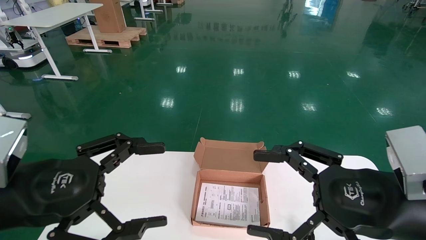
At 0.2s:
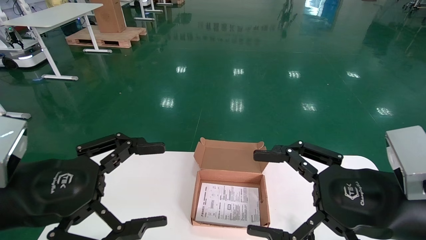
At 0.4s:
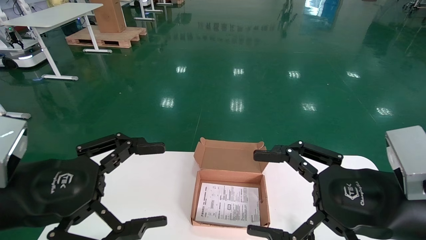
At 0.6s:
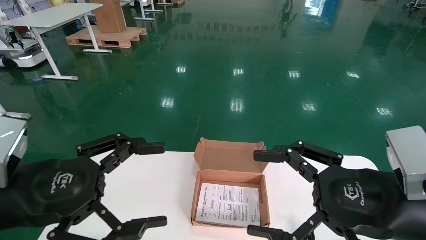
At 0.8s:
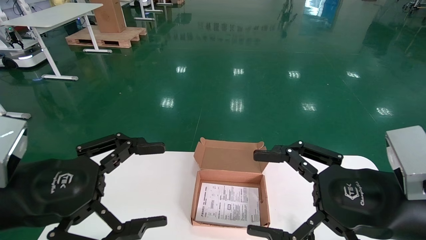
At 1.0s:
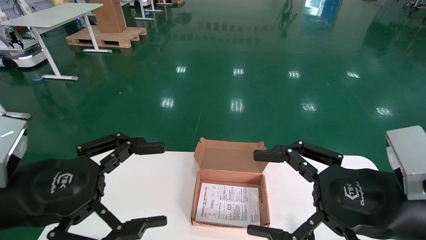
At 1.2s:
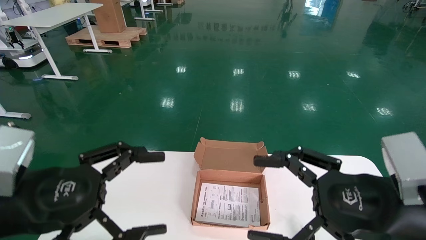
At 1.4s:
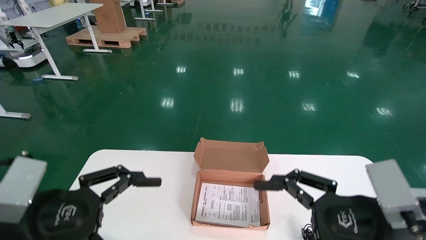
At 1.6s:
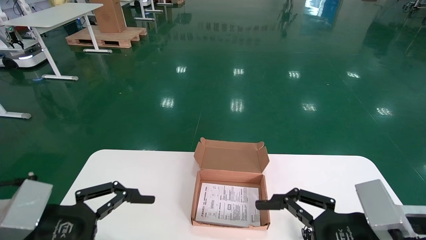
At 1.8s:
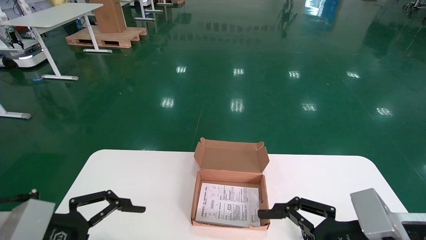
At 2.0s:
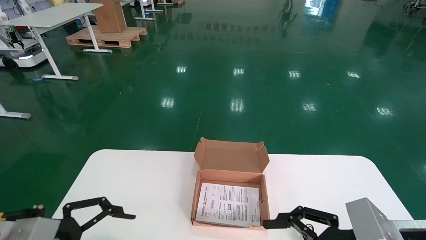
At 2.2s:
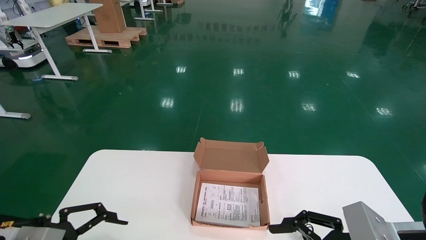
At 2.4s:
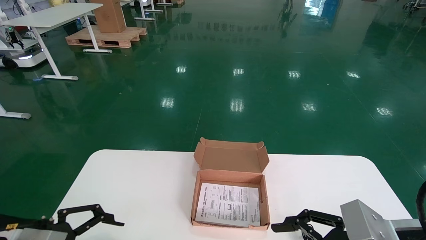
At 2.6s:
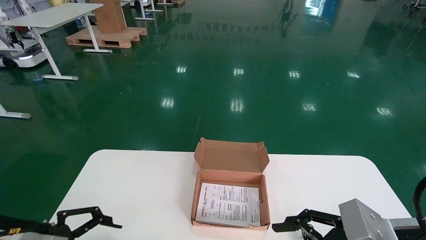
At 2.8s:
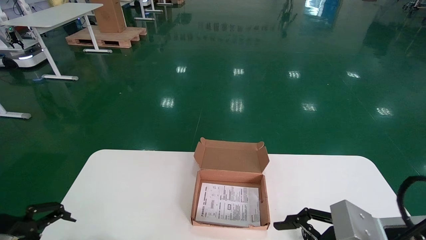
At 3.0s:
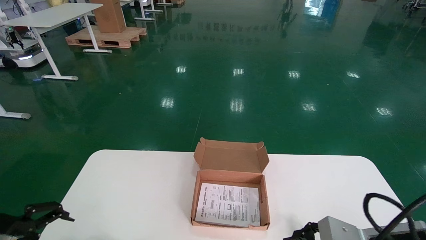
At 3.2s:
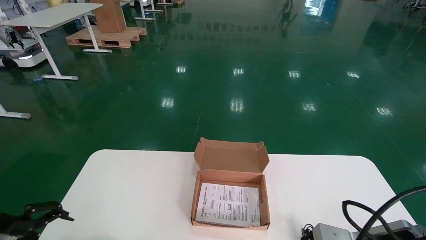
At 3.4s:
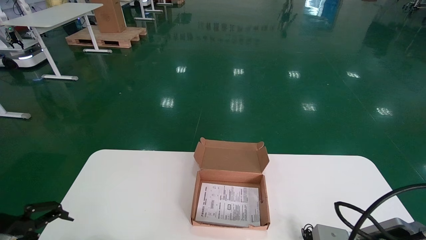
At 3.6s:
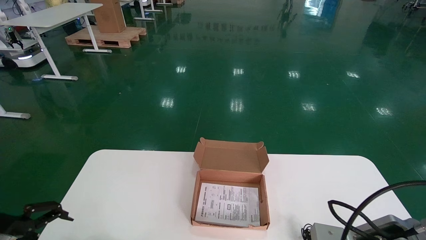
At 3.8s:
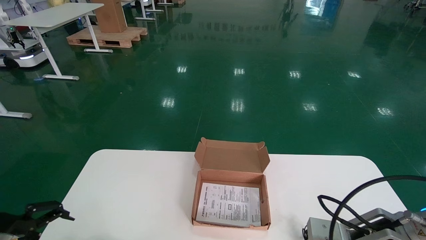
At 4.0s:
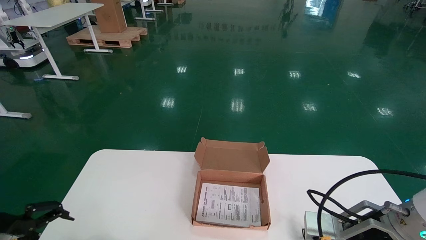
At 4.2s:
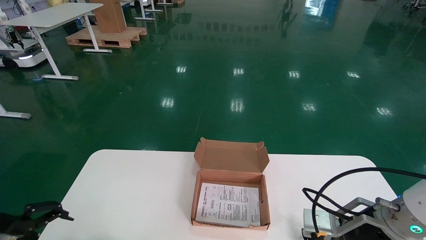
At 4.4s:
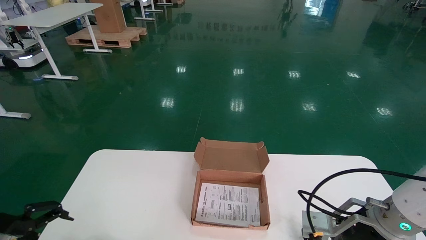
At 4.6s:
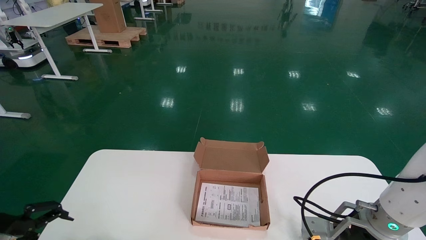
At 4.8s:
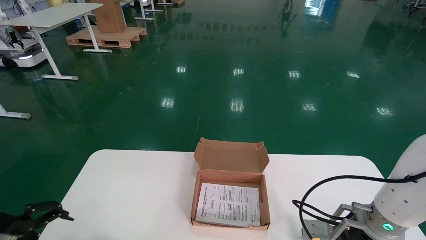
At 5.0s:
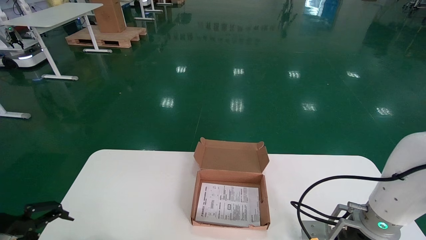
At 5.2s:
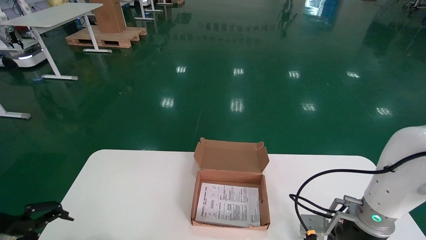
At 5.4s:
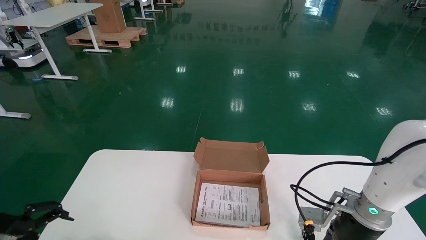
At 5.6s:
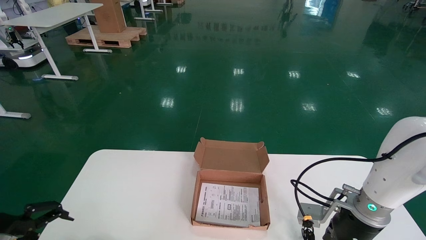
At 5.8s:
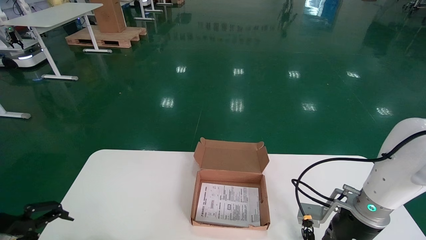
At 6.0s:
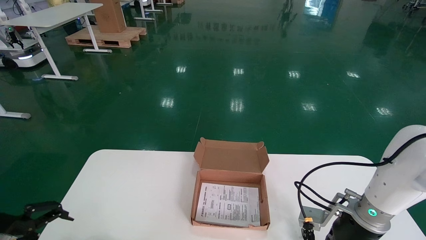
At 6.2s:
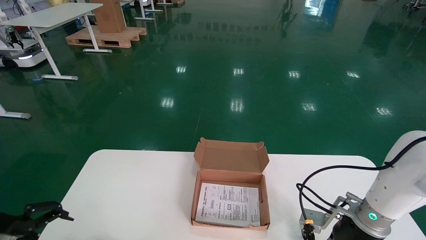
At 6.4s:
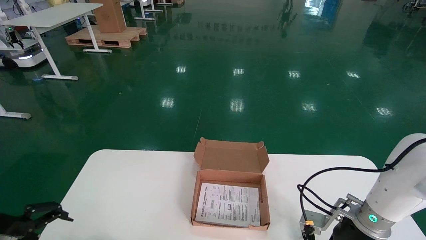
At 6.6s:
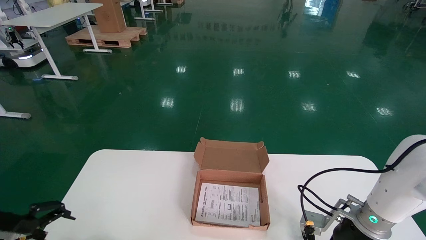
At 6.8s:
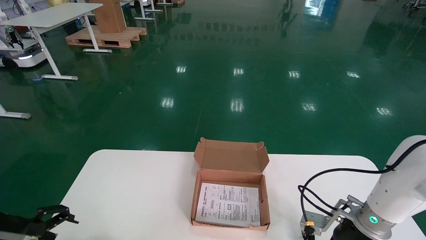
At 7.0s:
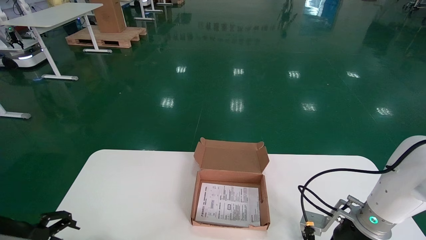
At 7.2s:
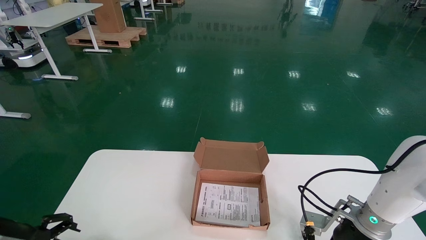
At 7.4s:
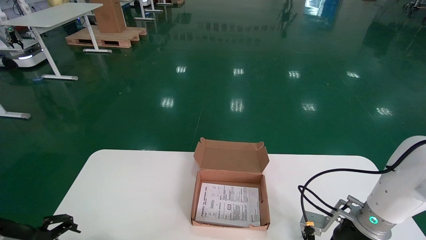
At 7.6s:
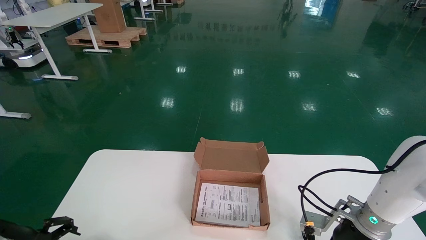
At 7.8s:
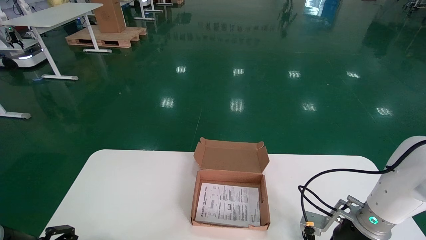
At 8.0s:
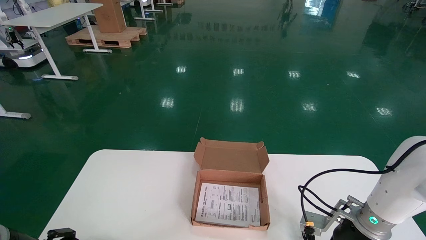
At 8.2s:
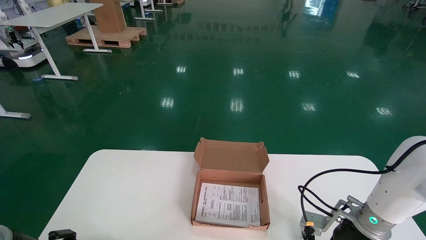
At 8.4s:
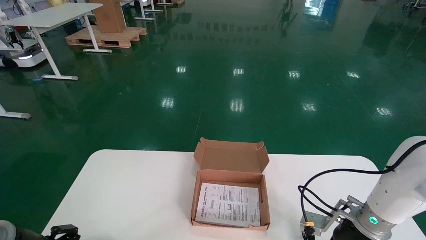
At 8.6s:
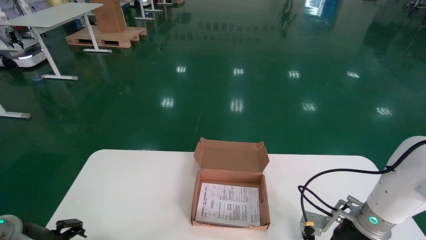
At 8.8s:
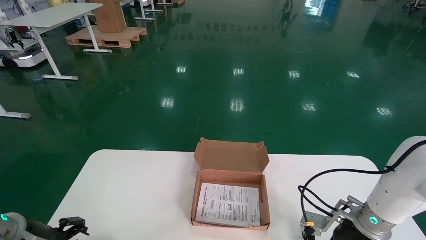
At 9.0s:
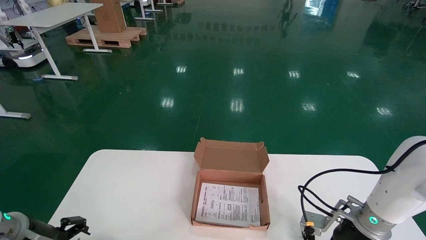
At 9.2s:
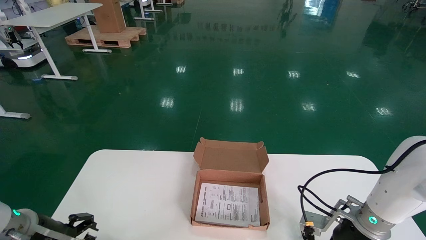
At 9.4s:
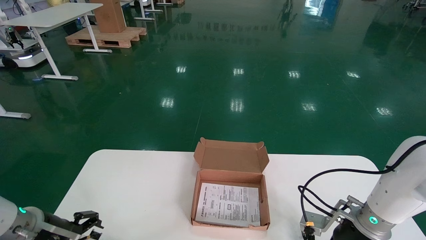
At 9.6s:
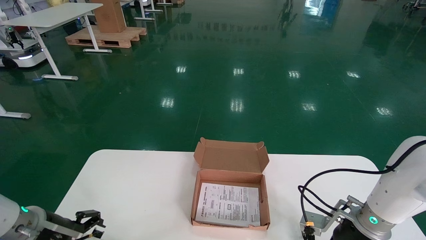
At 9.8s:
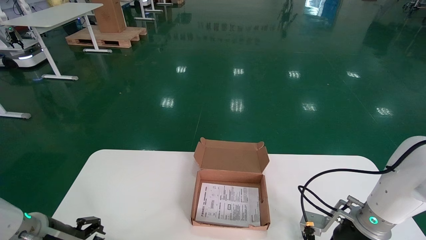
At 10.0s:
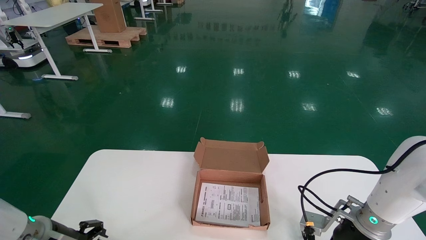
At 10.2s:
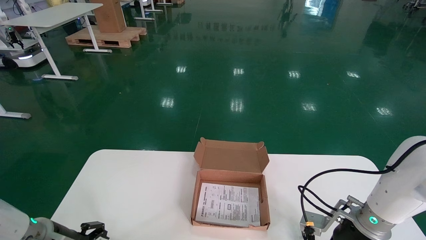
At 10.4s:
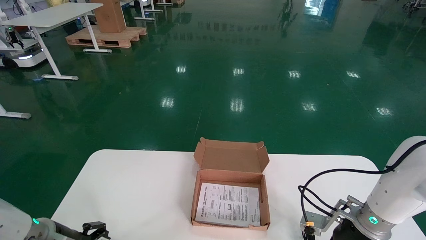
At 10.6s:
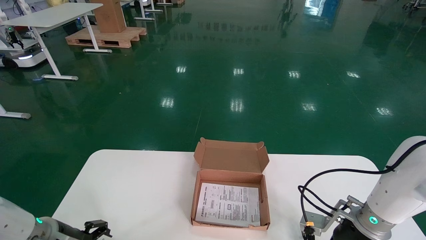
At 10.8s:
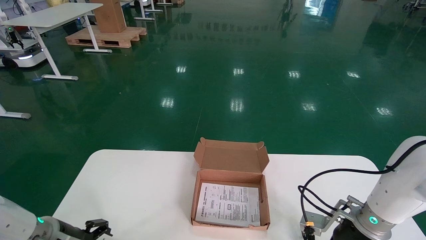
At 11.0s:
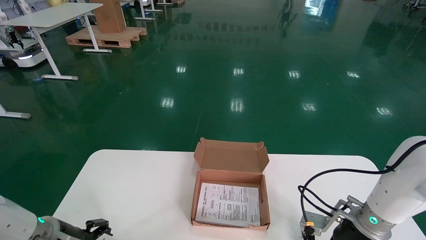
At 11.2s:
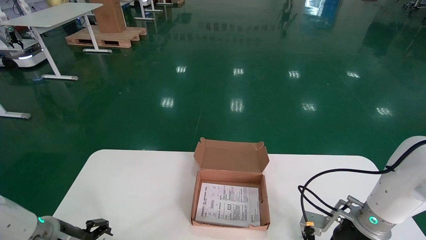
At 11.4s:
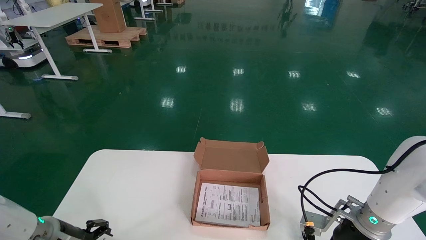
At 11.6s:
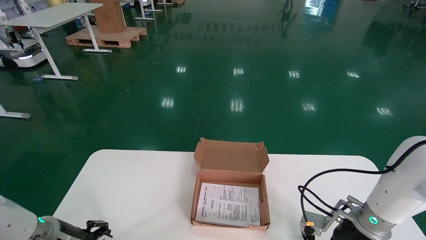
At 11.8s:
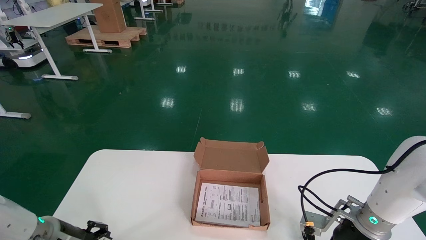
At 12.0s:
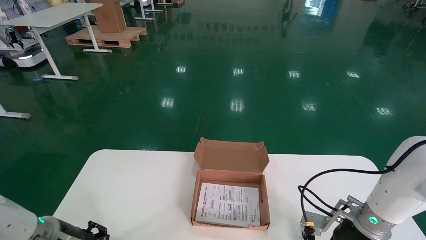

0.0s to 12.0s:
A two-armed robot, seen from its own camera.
1.6s to 3.0s: The left gripper heads to the left, covering approximately 10 cm.
3.0s to 4.4s: The right gripper shifts roughly 5 cm forward.
4.4s to 6.0s: The right gripper heads forward, covering about 10 cm.
6.0s to 7.6s: The grippers move only a little.
7.6s to 9.0s: The grippers stay close to where they were, moving slightly.
9.0s to 10.4s: There are only small adjustments of the grippers.
10.4s to 12.0s: The grippers stay close to where they were, moving slightly.

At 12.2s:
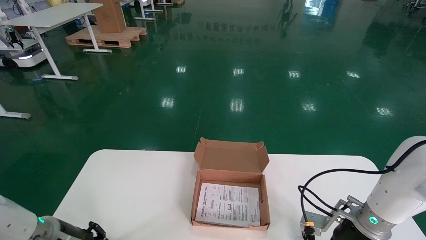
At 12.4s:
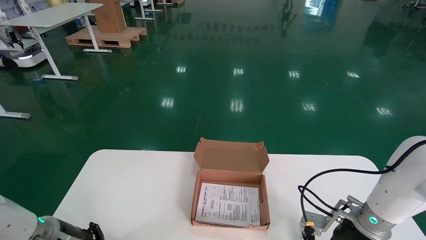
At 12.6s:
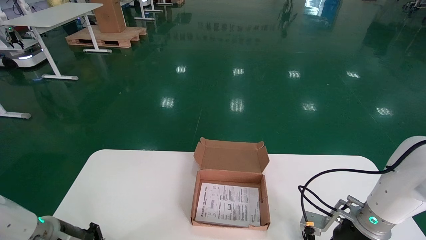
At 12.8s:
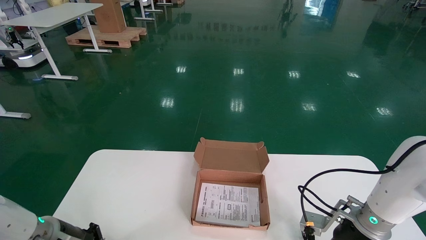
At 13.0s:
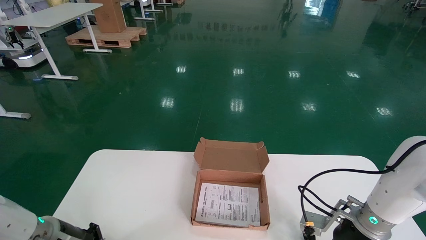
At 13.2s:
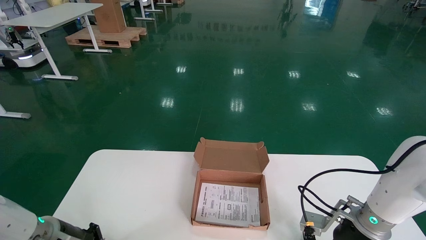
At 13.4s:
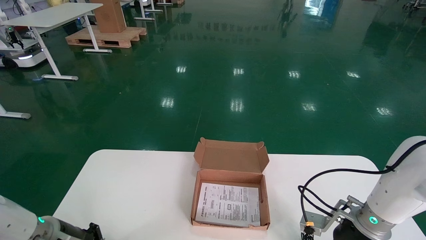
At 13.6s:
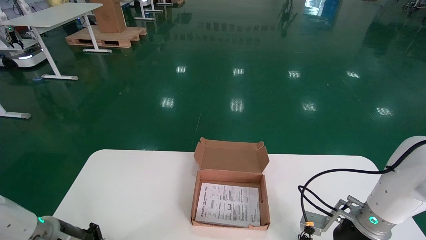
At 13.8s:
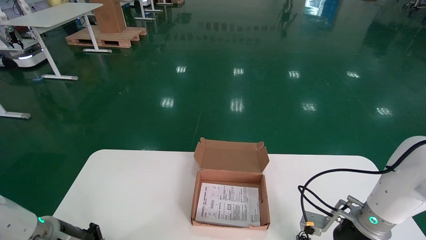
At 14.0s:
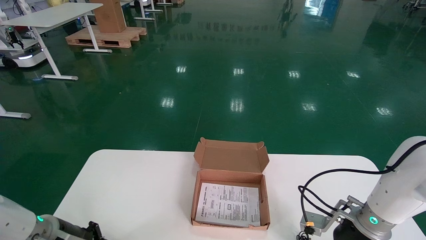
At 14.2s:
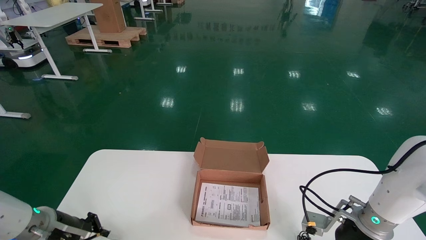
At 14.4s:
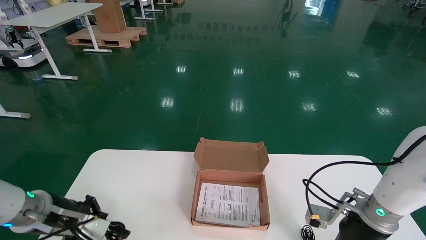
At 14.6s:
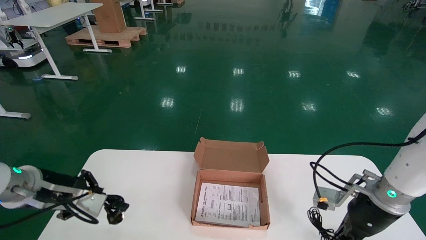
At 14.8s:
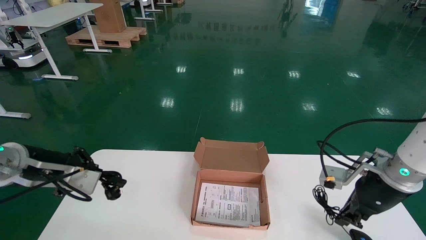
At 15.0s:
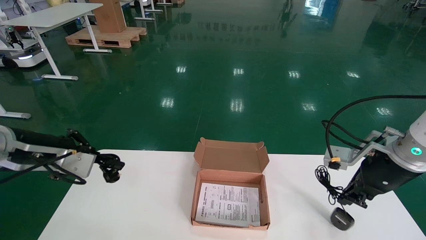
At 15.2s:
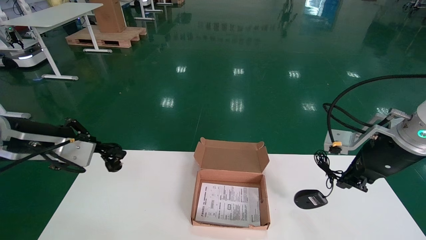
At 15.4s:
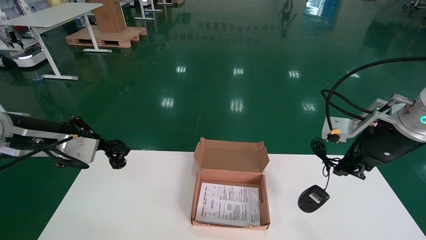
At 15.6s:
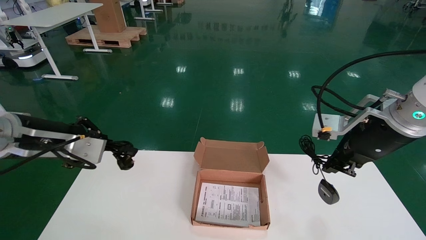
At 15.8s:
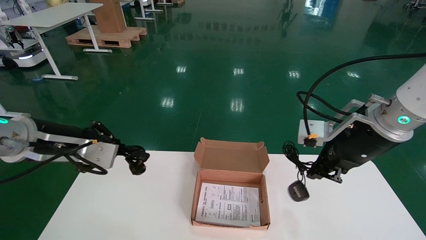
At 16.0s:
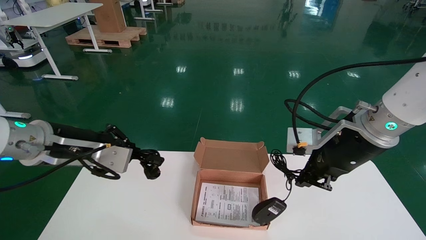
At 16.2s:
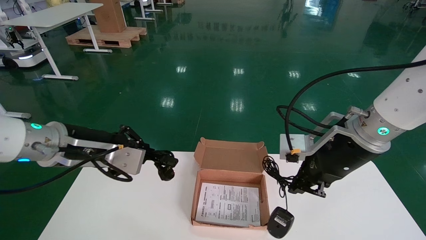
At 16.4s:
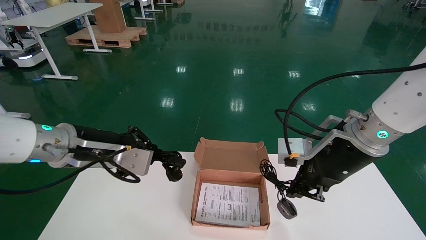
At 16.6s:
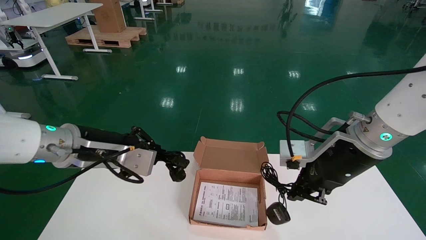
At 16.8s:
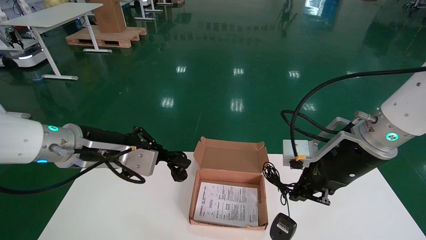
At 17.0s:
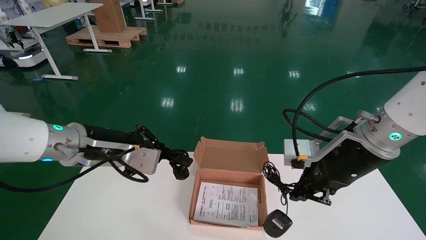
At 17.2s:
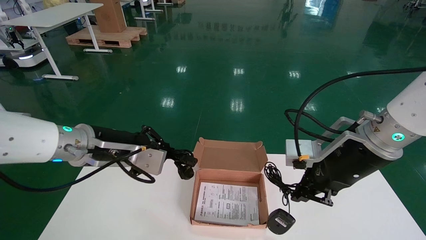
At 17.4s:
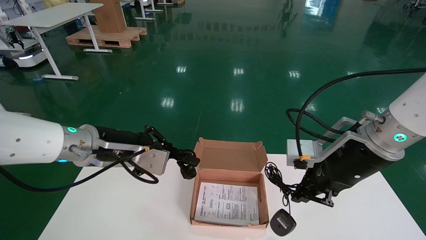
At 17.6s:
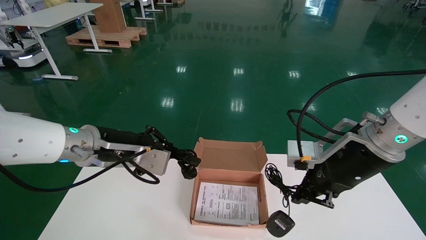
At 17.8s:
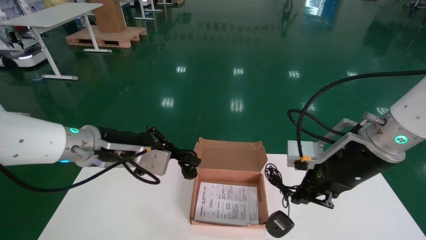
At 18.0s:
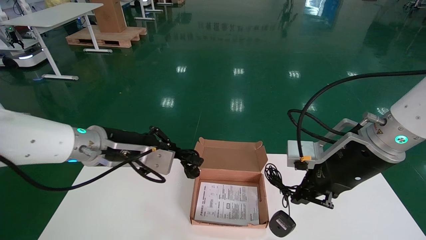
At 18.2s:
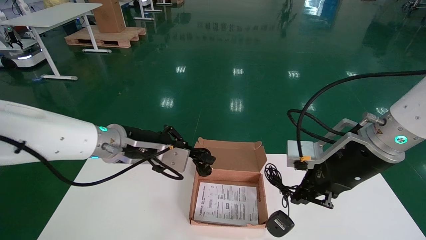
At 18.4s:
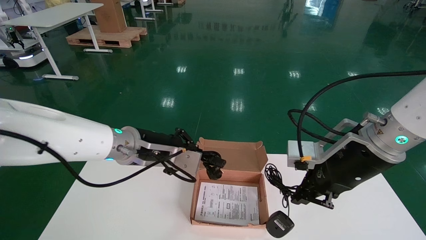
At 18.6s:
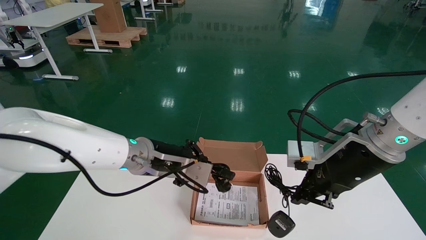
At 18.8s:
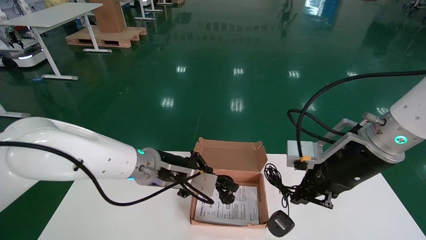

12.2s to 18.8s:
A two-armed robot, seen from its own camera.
Step, 12.2s to 14.6s: Grab and pick up the mouse and power cord from the accessory packaging area.
13.8s to 15.4s: Both grippers travel together upward, roughly 15 cm. The right gripper closes its fingers.
15.4s to 17.2s: The right gripper moves to the left and upward, approximately 15 cm. The left gripper heads to the right, covering some 10 cm.
17.2s to 18.8s: The left gripper travels to the right by roughly 5 cm.
